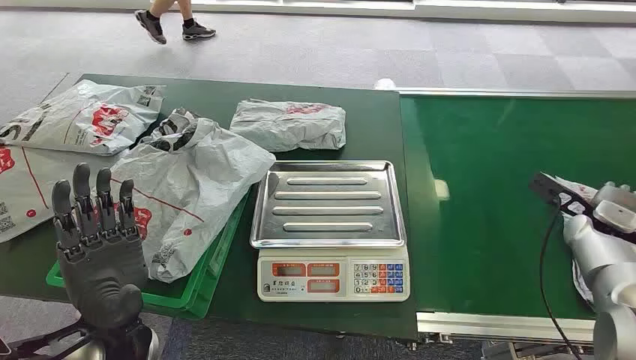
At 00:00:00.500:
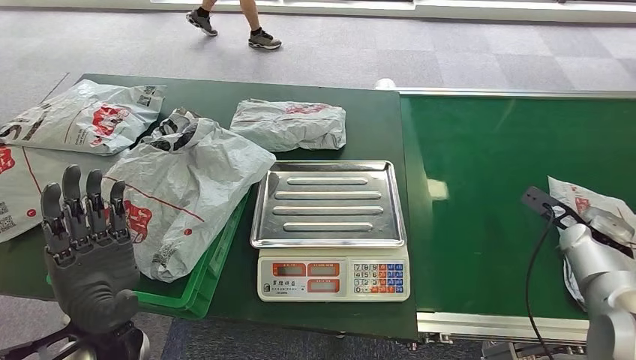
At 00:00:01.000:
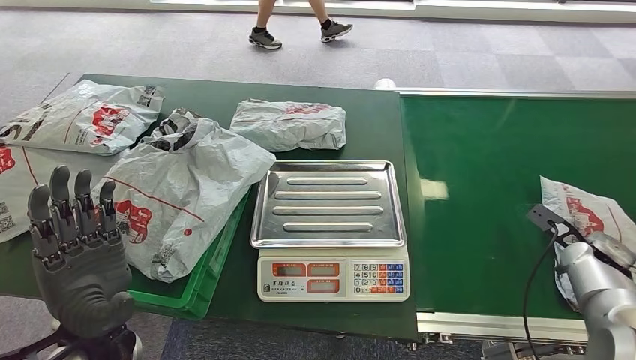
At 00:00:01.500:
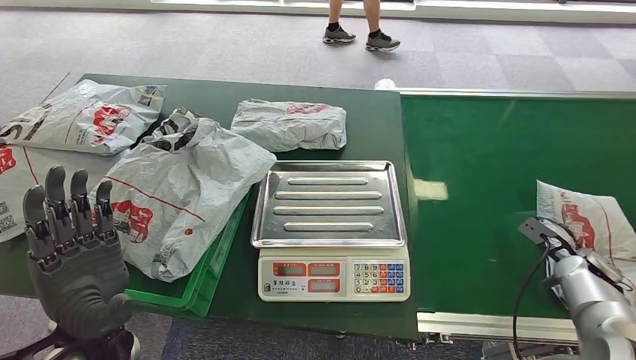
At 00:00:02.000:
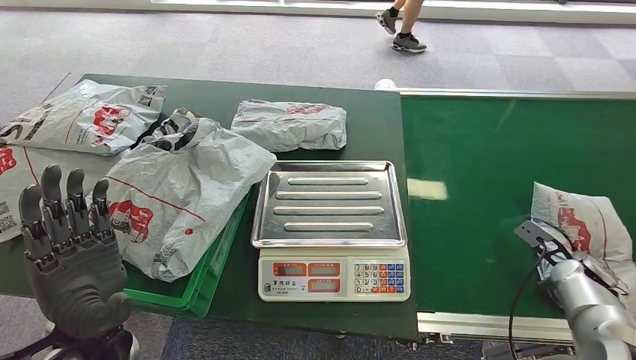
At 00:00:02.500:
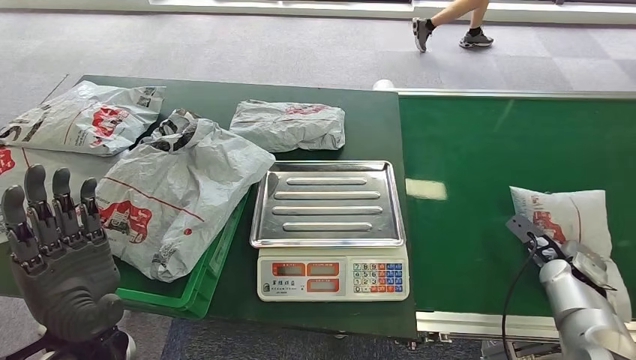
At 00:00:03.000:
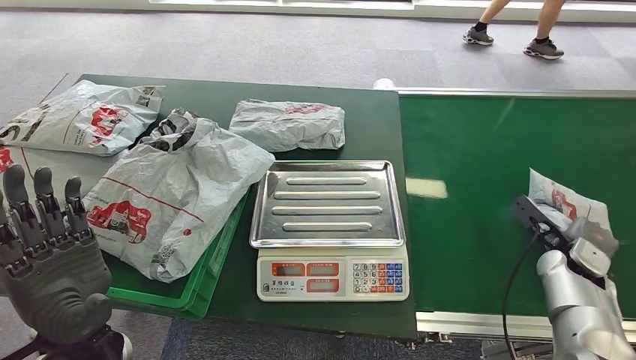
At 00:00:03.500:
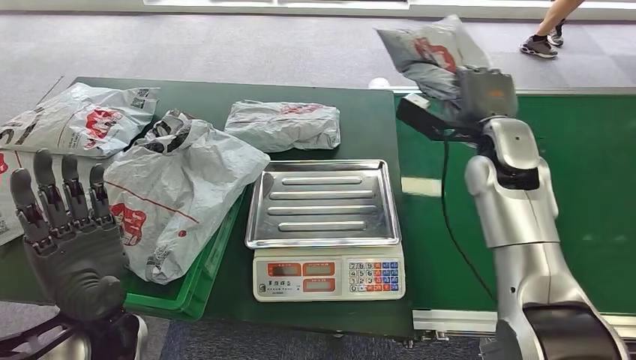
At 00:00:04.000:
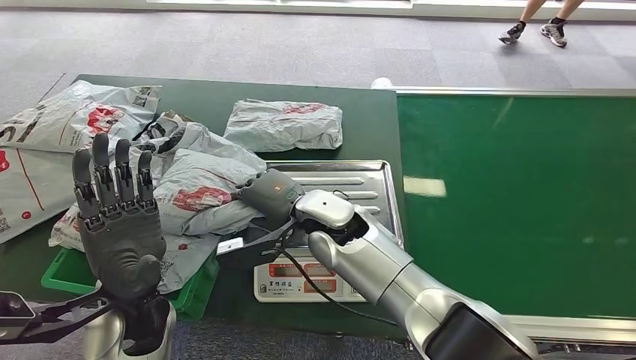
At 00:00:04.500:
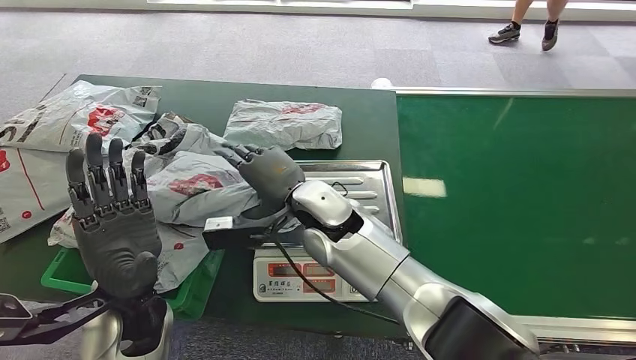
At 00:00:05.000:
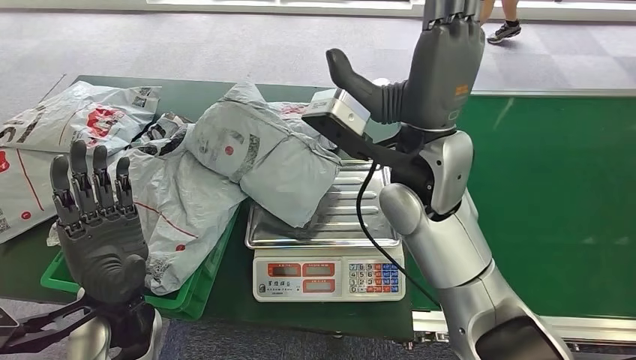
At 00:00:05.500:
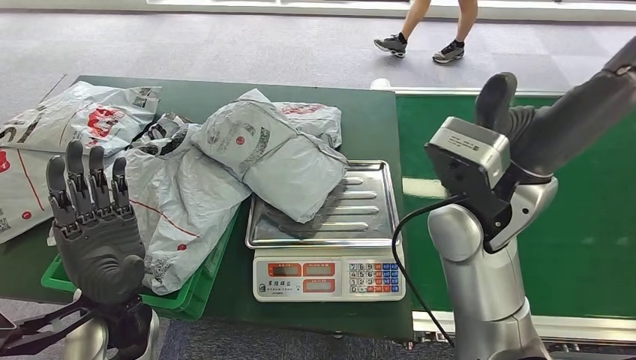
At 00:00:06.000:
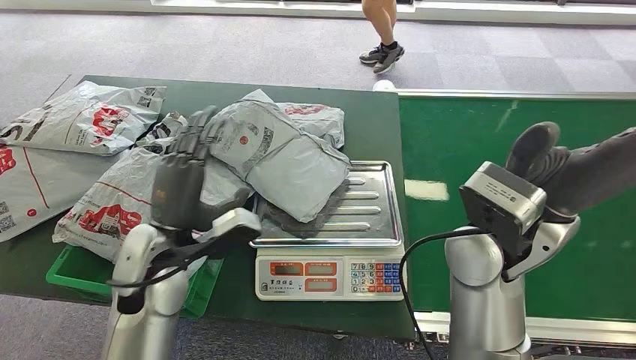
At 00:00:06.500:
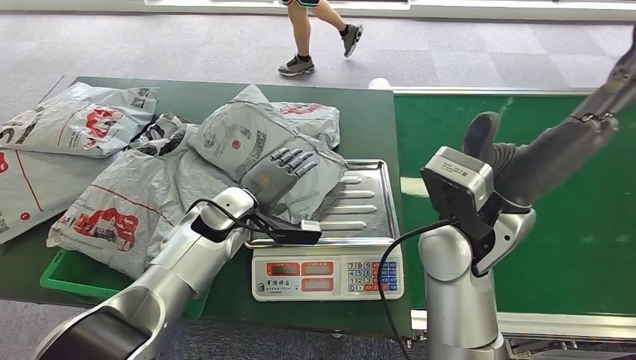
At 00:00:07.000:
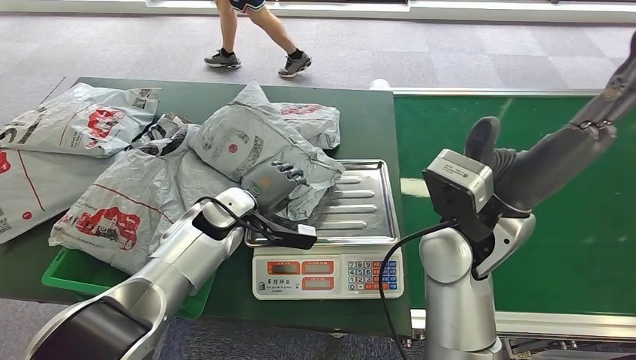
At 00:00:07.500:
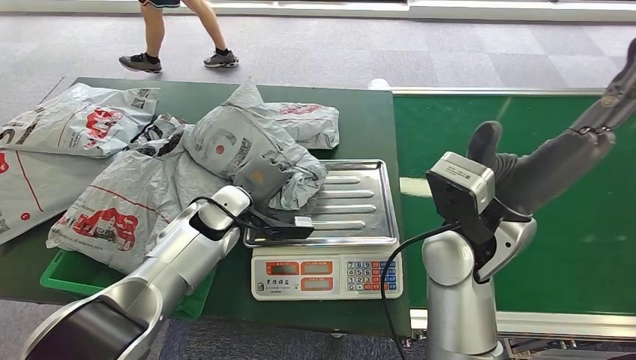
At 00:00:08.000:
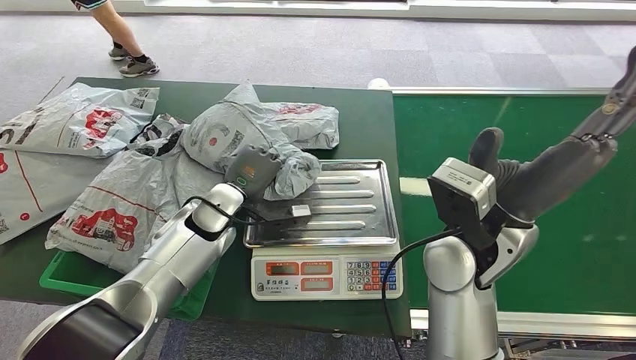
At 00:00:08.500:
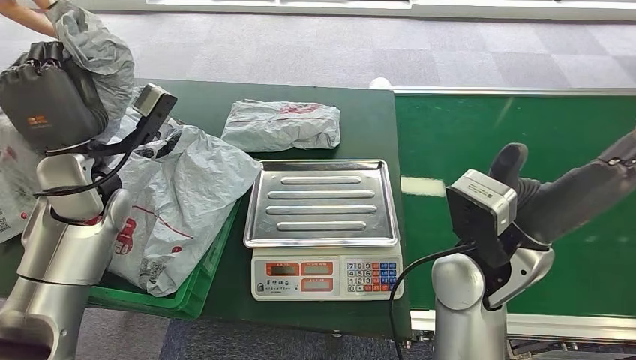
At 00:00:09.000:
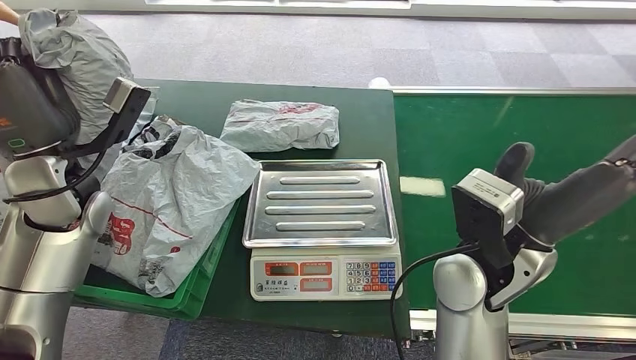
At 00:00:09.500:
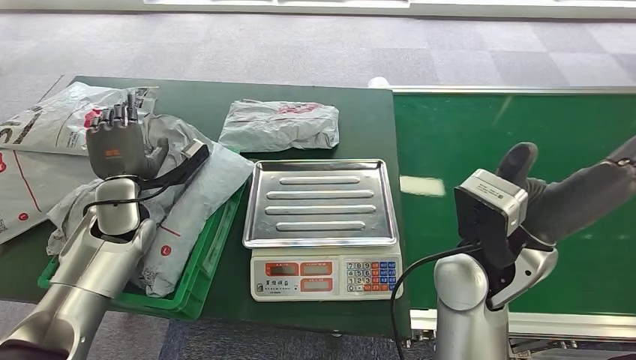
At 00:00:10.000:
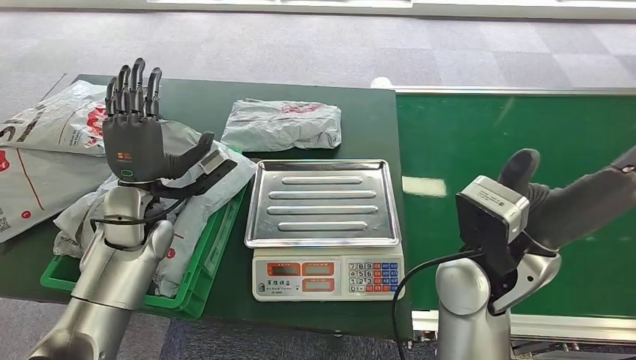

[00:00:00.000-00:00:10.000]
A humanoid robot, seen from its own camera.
Step, 00:00:00.000 to 00:00:03.000: Pick up the package from the conveyor belt.
Step, 00:00:03.500 to 00:00:05.000: Place the package onto the inbound machine.
Step, 00:00:05.500 to 00:00:08.500: Pick up the package from the inbound machine.
Step, 00:00:09.000 to 00:00:10.000: Place the package into the parcel locker.
